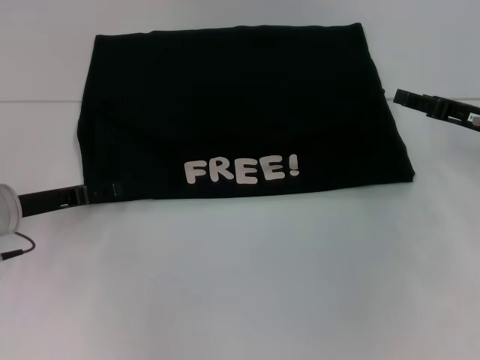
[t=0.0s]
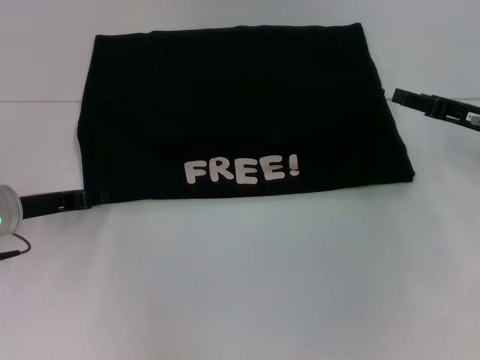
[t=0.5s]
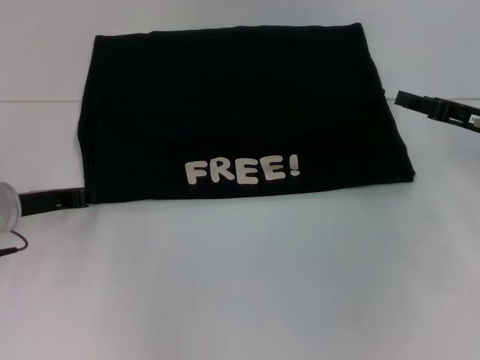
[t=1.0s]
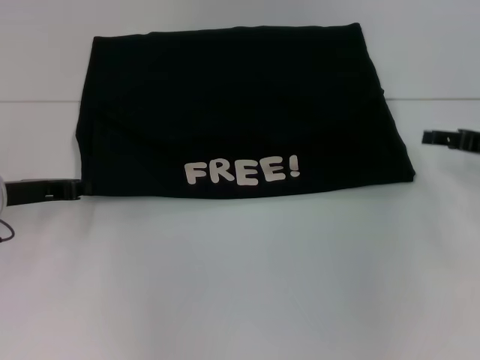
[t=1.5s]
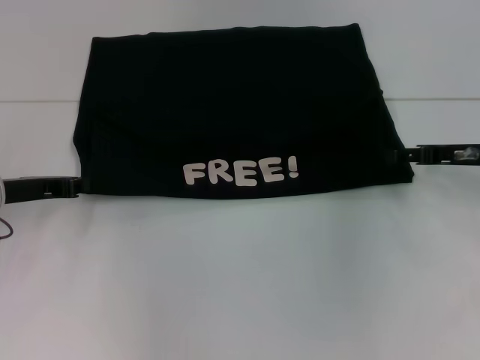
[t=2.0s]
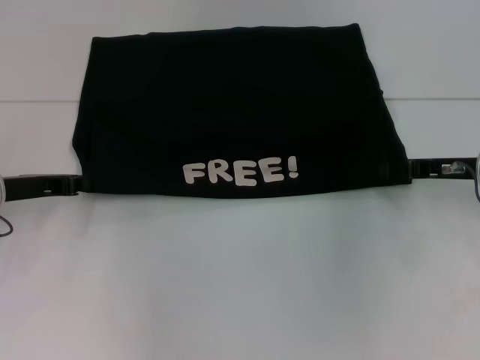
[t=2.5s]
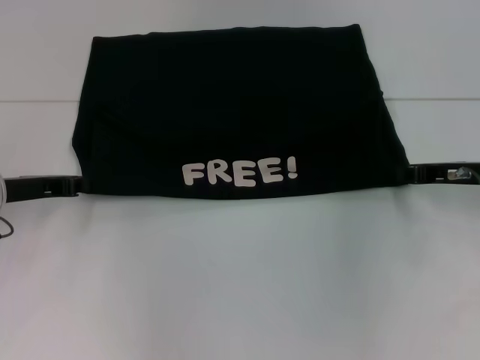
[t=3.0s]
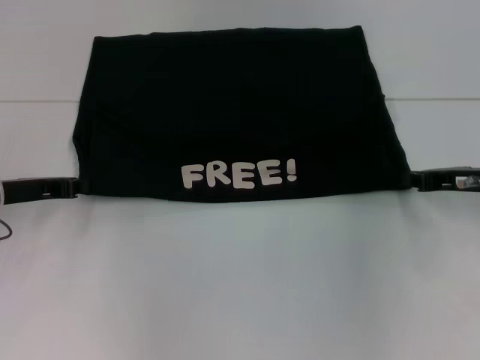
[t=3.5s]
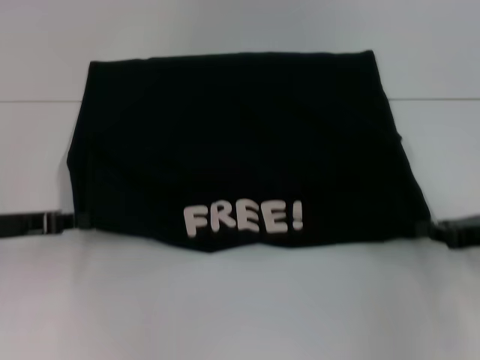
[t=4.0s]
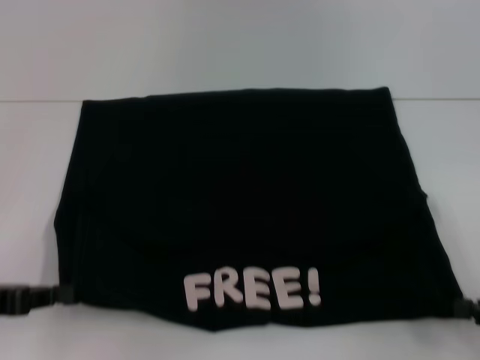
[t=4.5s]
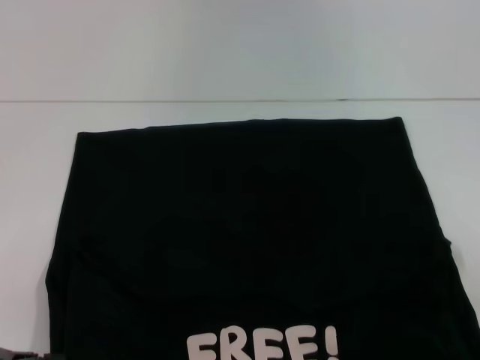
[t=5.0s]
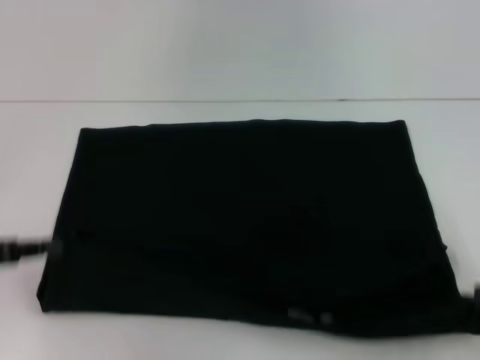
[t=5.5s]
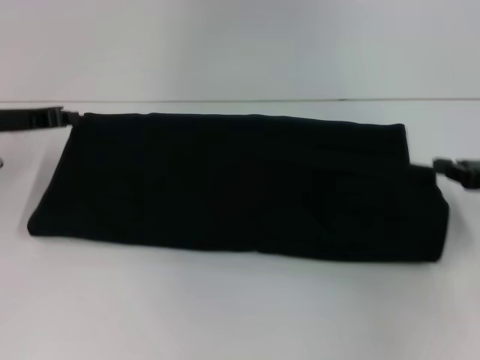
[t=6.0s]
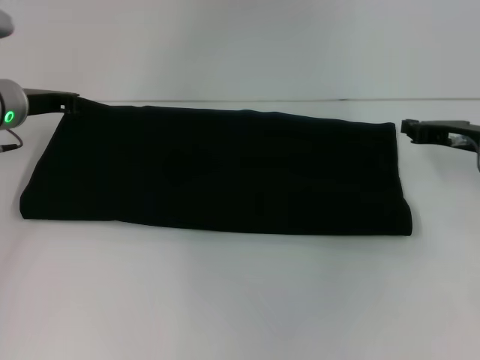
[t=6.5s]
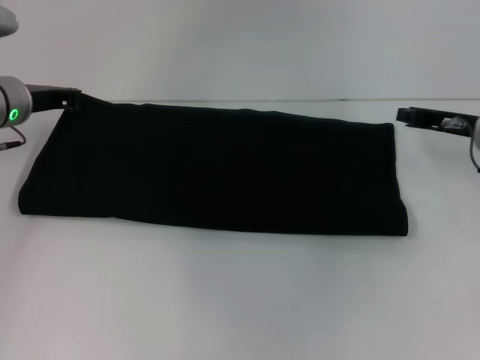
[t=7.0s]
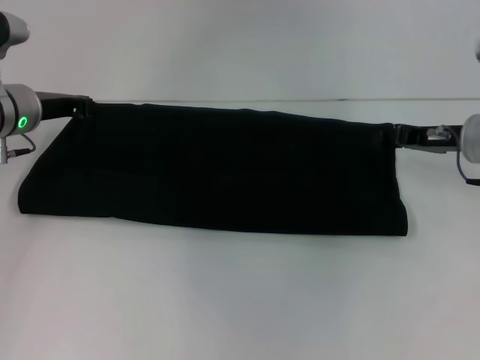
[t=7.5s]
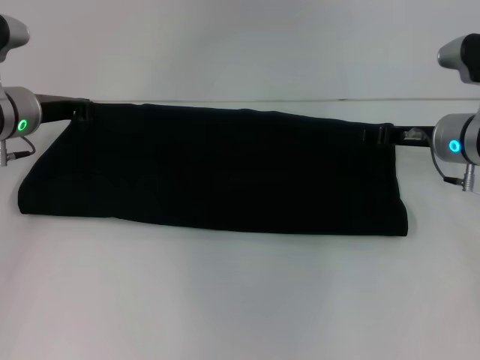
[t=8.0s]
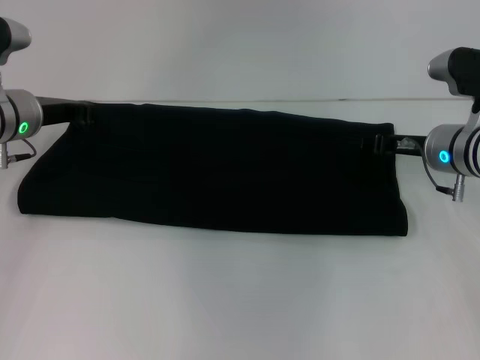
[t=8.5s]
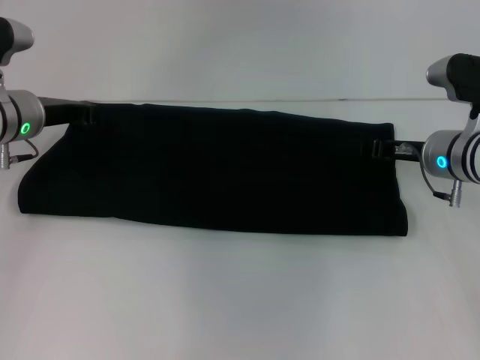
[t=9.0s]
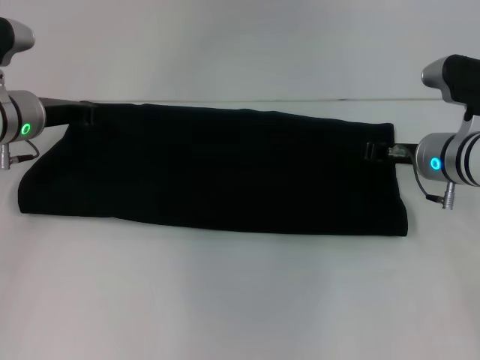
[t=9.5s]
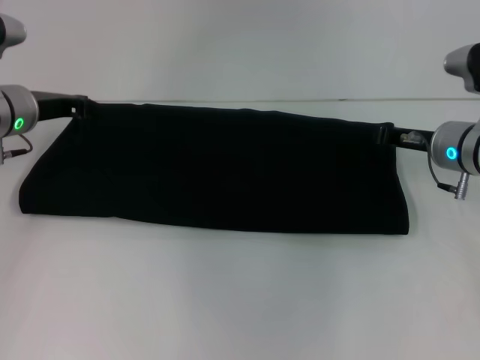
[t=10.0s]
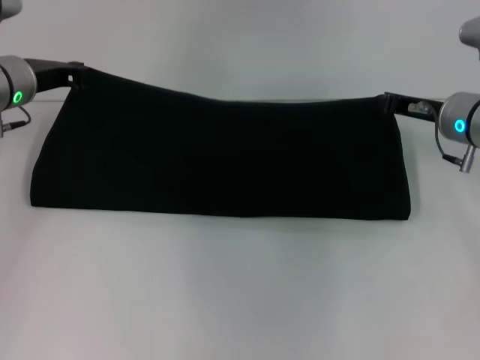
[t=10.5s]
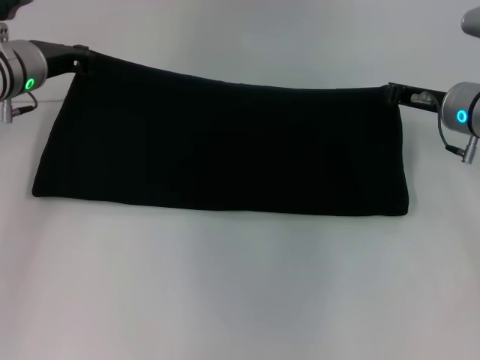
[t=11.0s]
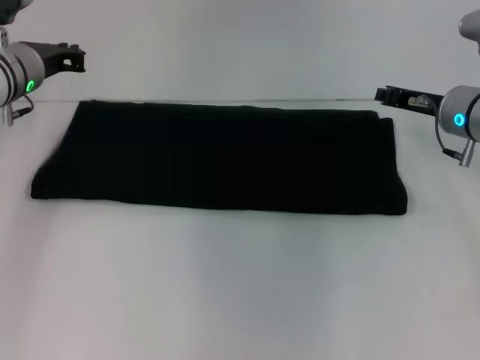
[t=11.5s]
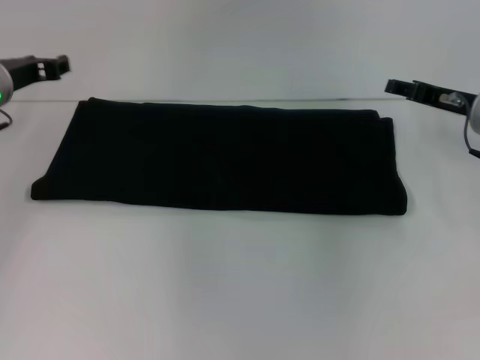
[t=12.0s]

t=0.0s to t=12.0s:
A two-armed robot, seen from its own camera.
Step, t=0.0s to t=5.0s: Pull the clothes with your left hand.
Step, t=0.0s to t=5.0s: Pull the clothes with your right hand.
Step, t=5.5s to t=11.0s: Fold the clothes with your right hand.
t=0.0s to t=2.0s: The left gripper closes up.
t=2.0s to t=4.0s: The left gripper moves some 5 cm; the right gripper goes about 10 cm backward, and closes up.
t=4.0s to t=6.0s: The left gripper moves forward, approximately 10 cm, while the right gripper travels backward and back again, about 15 cm each way.
t=6.0s to t=8.0s: The right gripper shifts about 15 cm to the left and forward, and opens up. The left gripper ends up approximately 5 cm from where it was.
t=8.0s to t=10.0s: The right gripper closes up.
t=10.0s to t=12.0s: The left gripper opens. The right gripper shifts by some 5 cm, and opens.

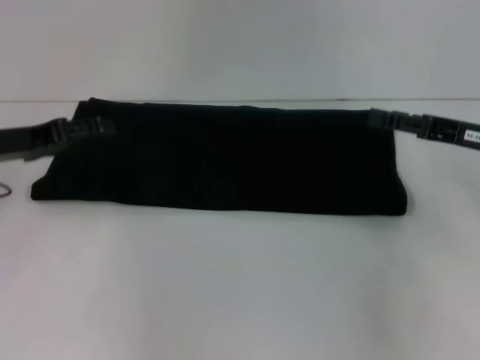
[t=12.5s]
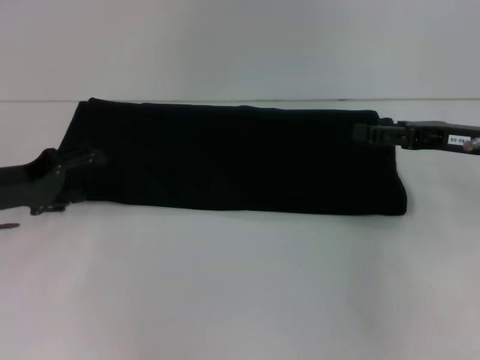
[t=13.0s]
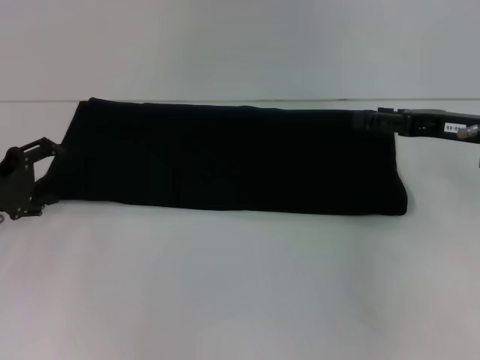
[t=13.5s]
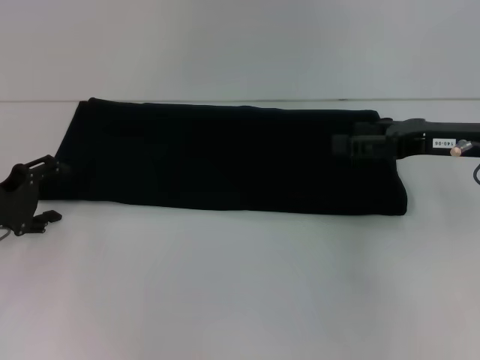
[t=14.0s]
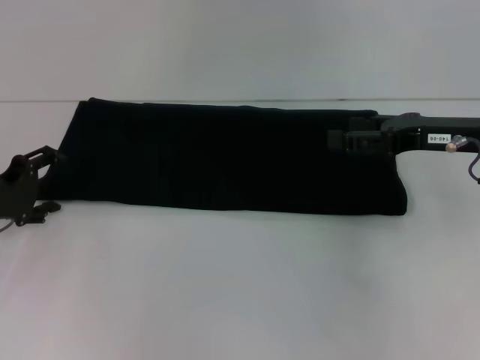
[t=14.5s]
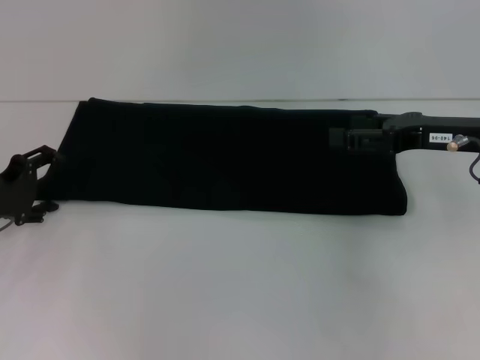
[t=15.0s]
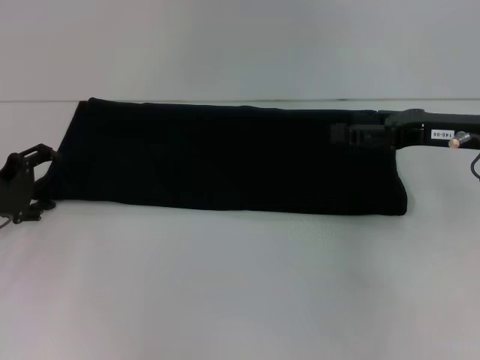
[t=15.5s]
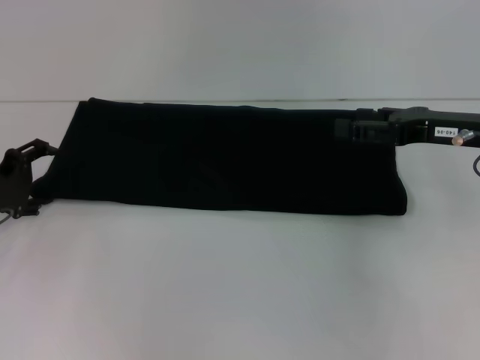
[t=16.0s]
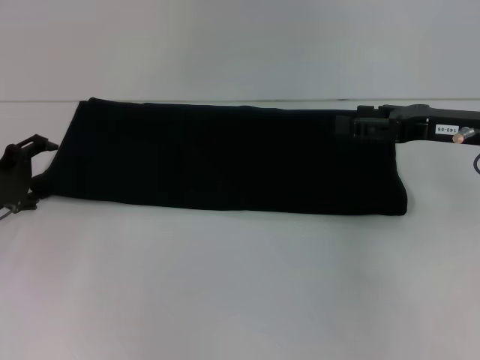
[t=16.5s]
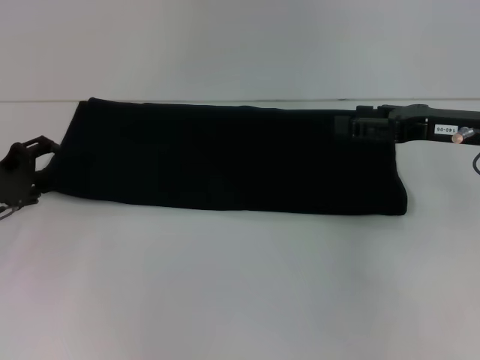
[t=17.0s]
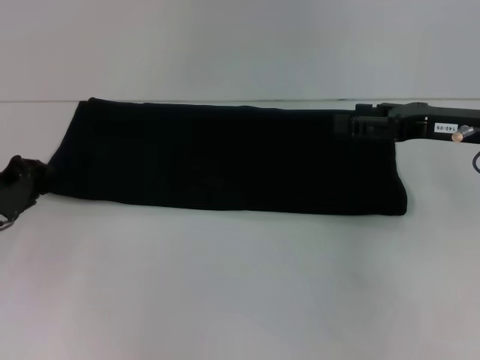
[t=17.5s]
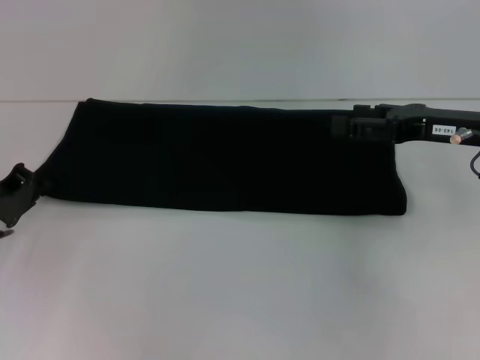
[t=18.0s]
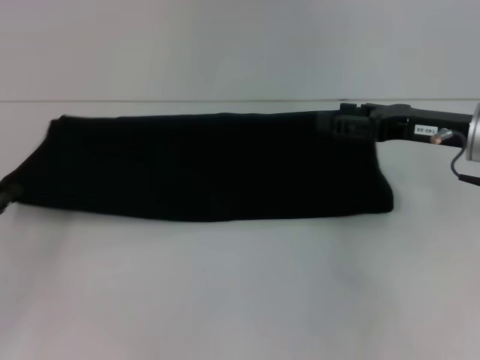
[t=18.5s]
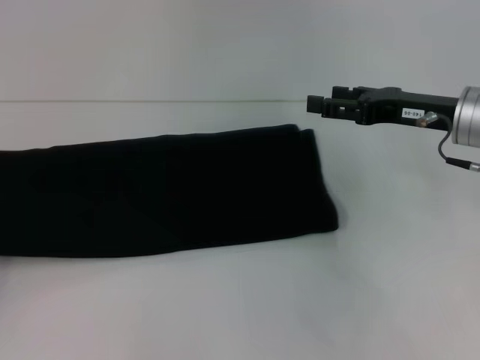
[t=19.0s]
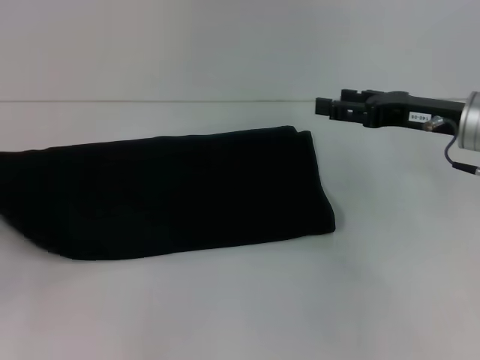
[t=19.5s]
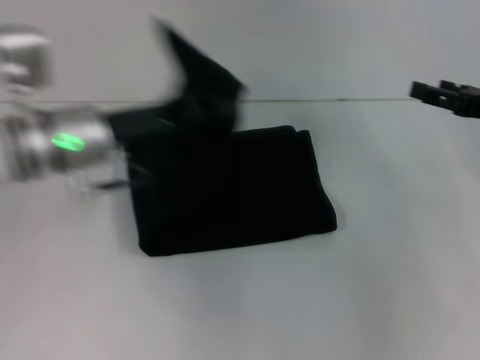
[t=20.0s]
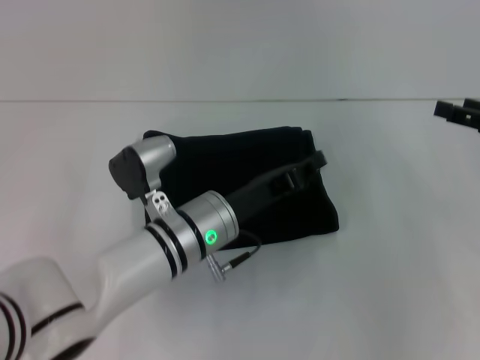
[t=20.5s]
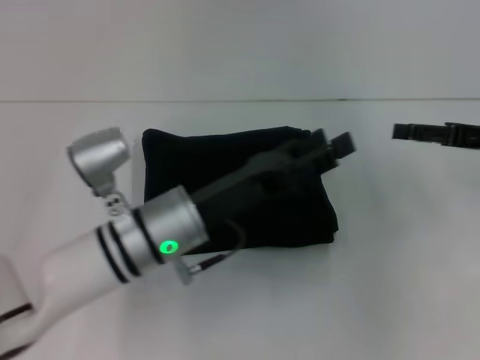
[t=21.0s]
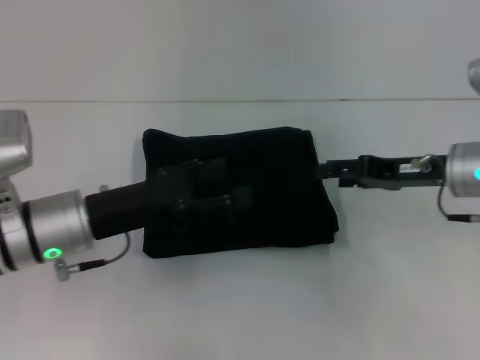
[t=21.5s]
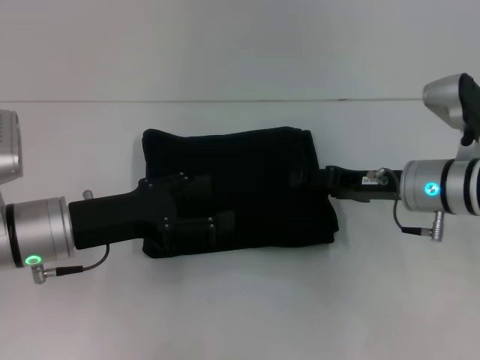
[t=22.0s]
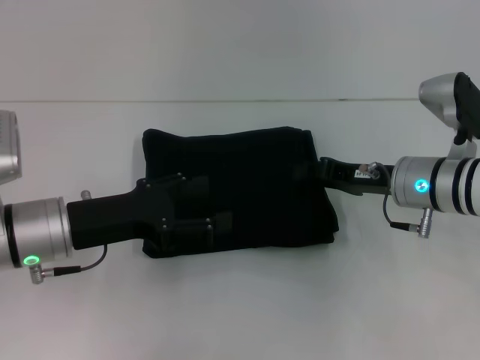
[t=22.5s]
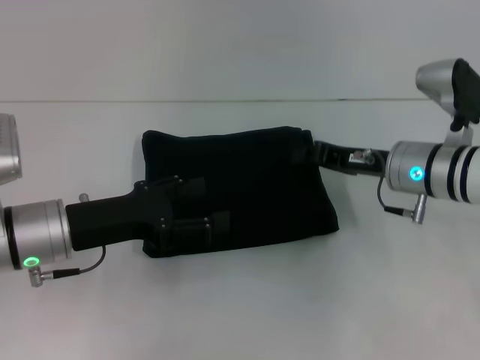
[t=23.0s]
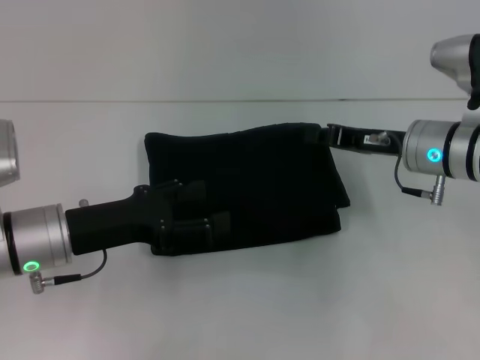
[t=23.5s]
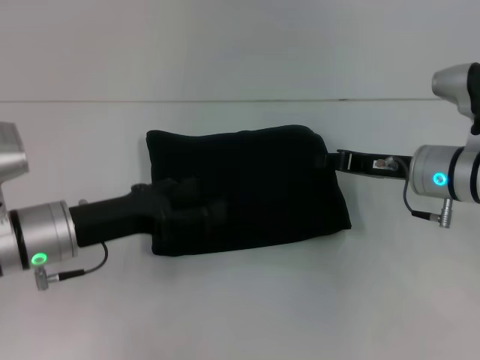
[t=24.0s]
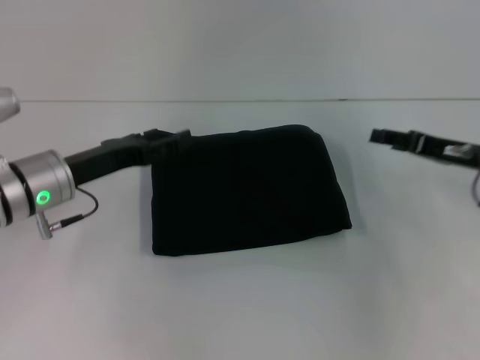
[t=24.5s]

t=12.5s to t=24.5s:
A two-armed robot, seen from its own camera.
Step, t=12.5s to t=20.5s: Fold the clothes with your left hand.
t=12.5s to t=14.5s: The left gripper heads downward, covering about 5 cm.
t=14.5s to t=16.5s: The grippers make only small movements.
t=16.5s to t=18.5s: The left gripper shifts approximately 5 cm backward, and closes up.
t=18.5s to t=20.5s: The left gripper is displaced to the right by some 30 cm. The right gripper moves to the right, roughly 10 cm.
t=20.5s to t=22.5s: The two grippers go some 15 cm to the left. The left gripper opens its fingers.
t=22.5s to t=24.5s: The right gripper travels to the right by about 10 cm; the left gripper goes about 5 cm forward.

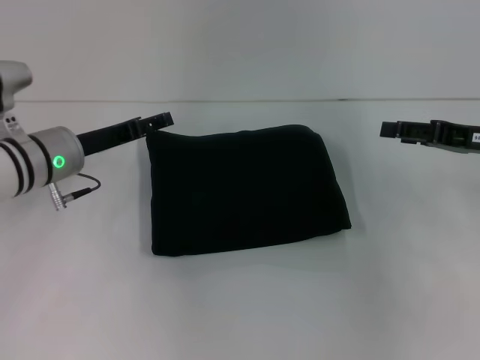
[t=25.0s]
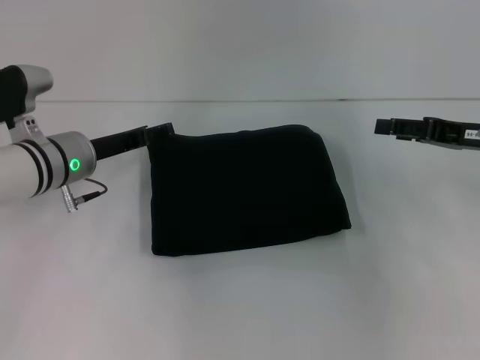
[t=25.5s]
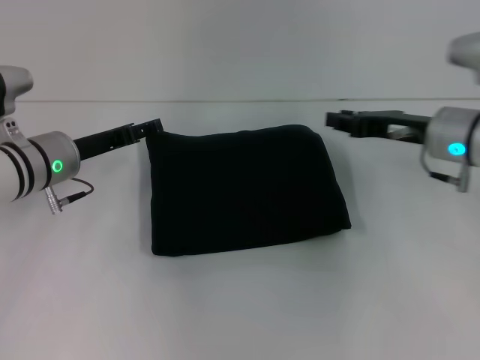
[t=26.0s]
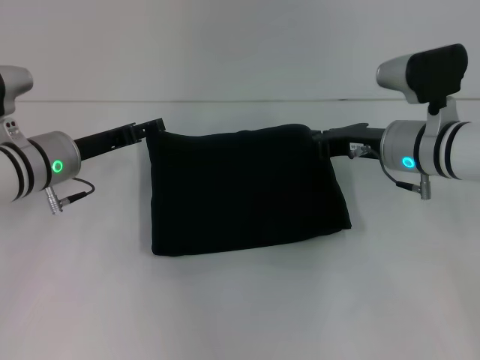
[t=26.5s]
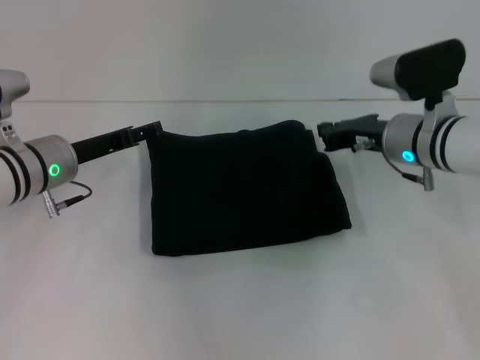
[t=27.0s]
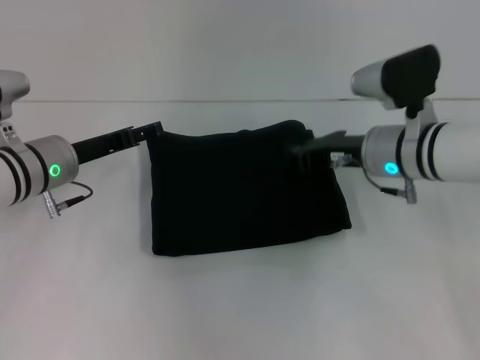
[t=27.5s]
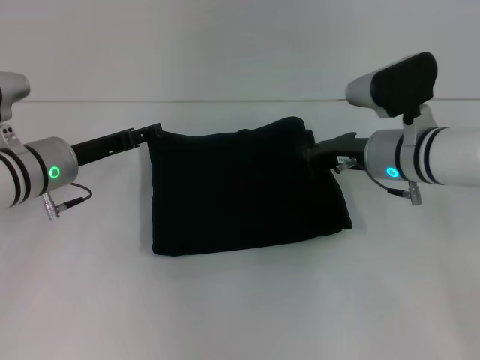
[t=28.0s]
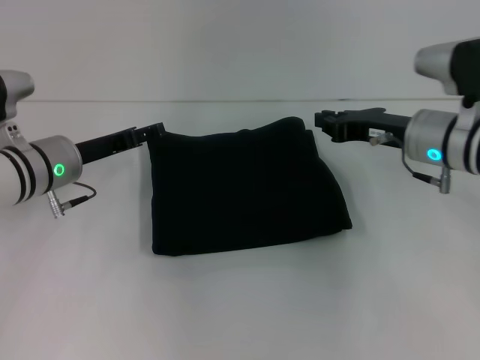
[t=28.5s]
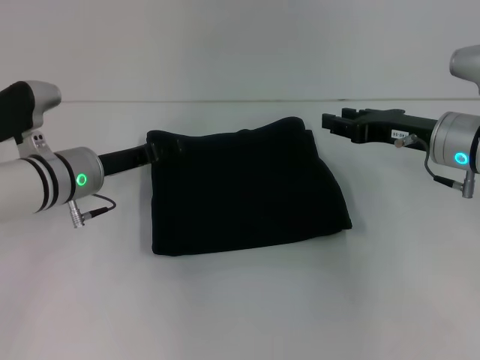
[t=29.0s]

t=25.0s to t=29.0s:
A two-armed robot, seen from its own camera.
t=25.0s to t=27.0s: The right gripper shifts some 15 cm to the left, and closes its fingers.
t=27.0s to t=29.0s: The right gripper changes place by about 5 cm, and opens.
